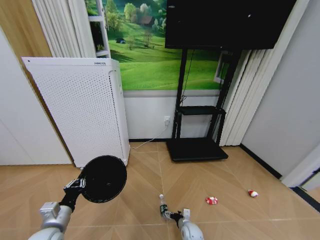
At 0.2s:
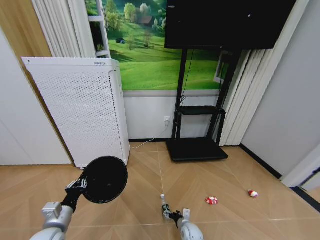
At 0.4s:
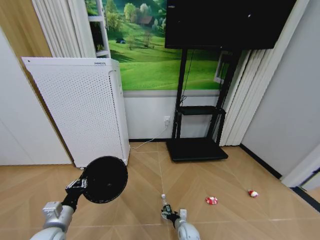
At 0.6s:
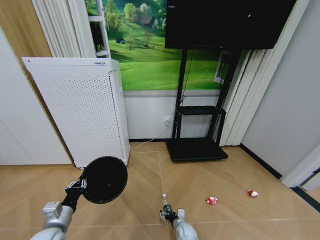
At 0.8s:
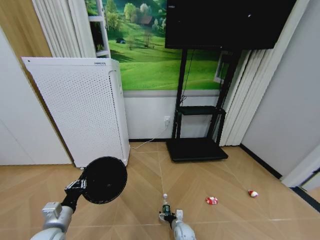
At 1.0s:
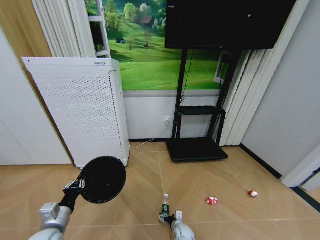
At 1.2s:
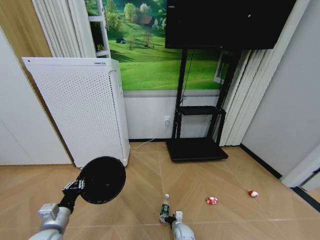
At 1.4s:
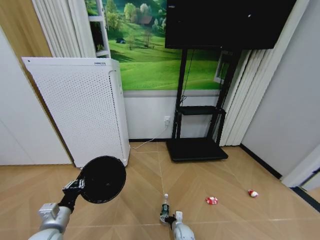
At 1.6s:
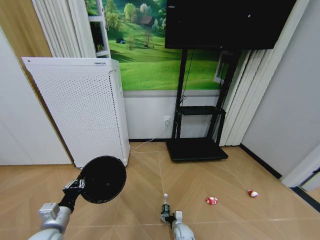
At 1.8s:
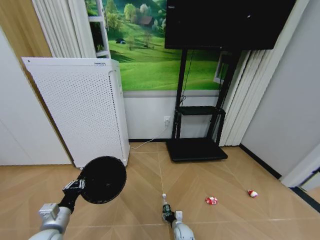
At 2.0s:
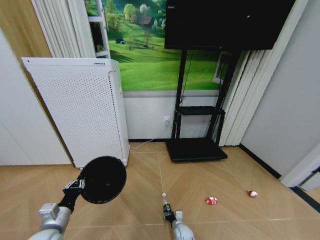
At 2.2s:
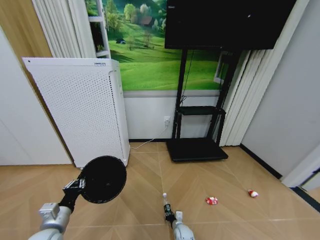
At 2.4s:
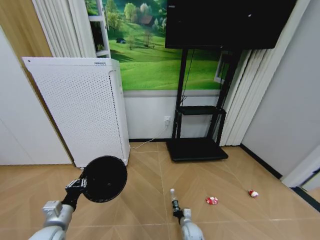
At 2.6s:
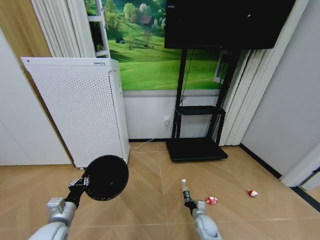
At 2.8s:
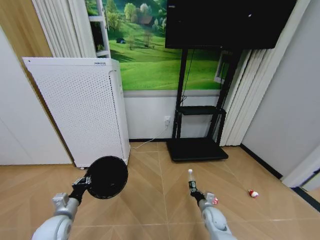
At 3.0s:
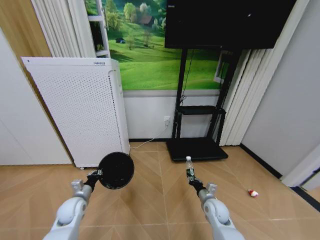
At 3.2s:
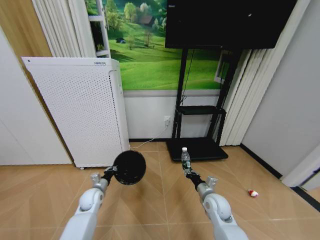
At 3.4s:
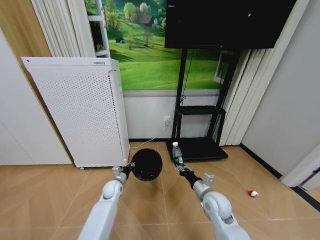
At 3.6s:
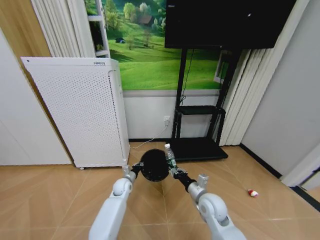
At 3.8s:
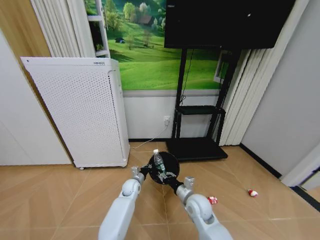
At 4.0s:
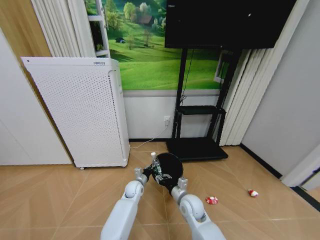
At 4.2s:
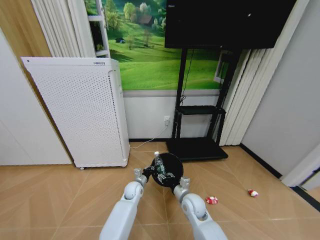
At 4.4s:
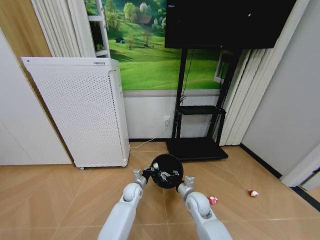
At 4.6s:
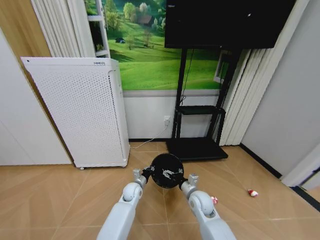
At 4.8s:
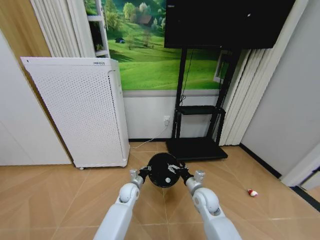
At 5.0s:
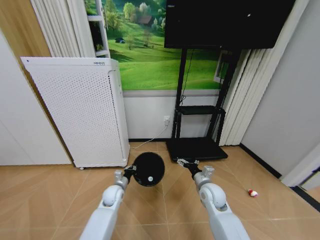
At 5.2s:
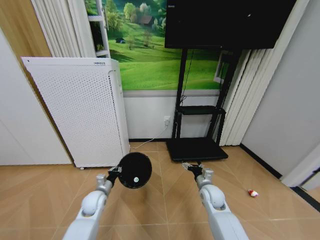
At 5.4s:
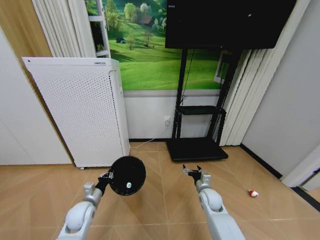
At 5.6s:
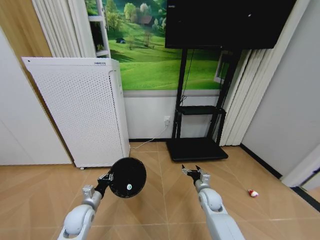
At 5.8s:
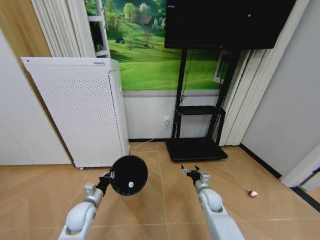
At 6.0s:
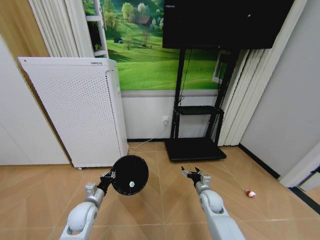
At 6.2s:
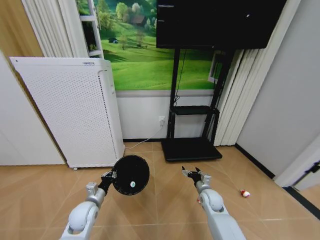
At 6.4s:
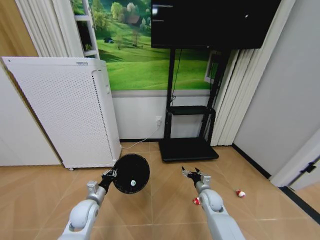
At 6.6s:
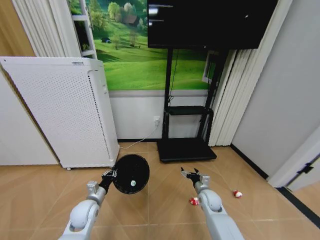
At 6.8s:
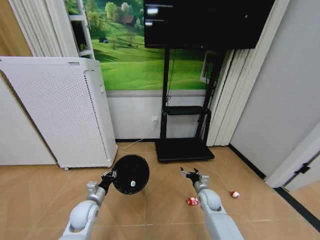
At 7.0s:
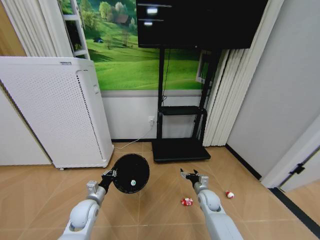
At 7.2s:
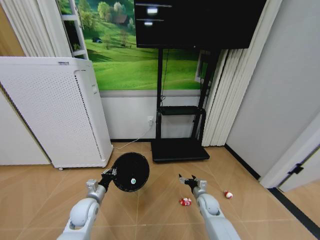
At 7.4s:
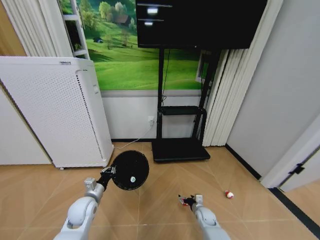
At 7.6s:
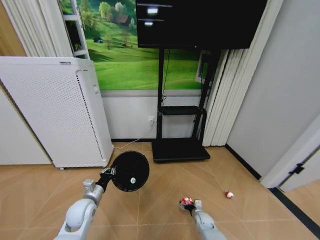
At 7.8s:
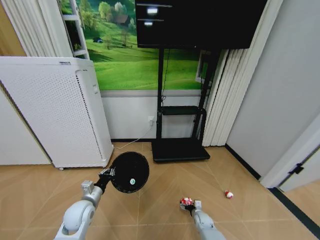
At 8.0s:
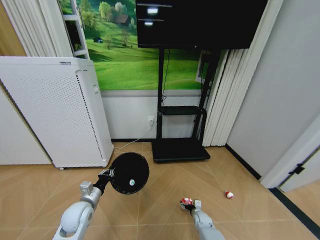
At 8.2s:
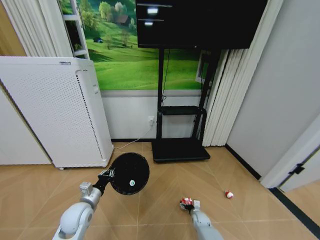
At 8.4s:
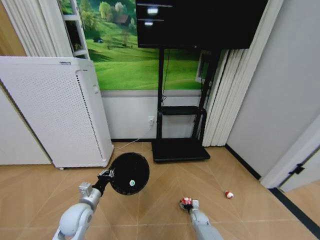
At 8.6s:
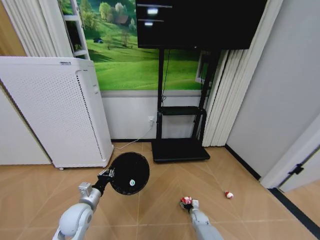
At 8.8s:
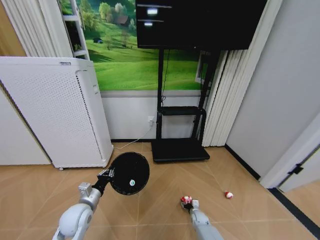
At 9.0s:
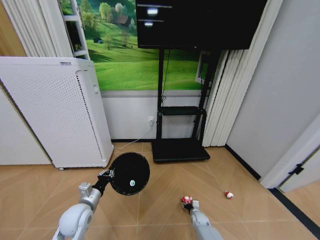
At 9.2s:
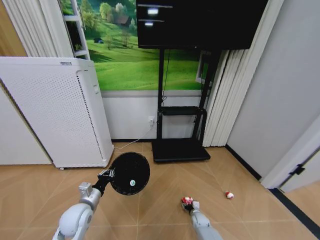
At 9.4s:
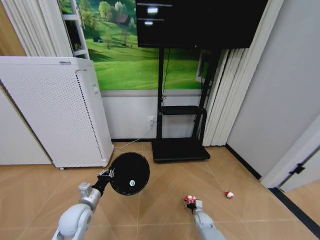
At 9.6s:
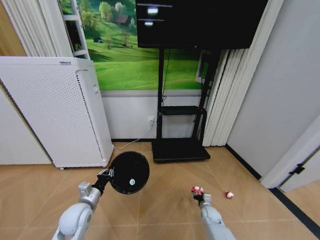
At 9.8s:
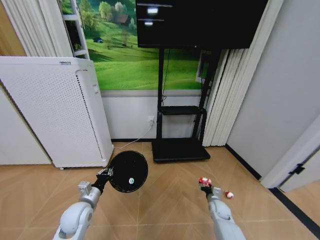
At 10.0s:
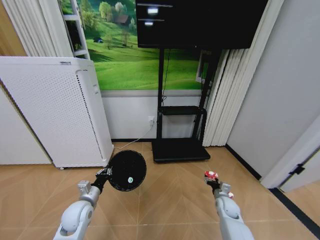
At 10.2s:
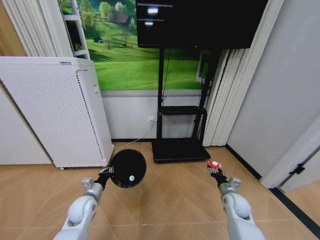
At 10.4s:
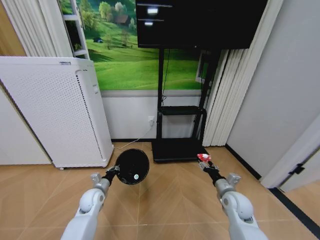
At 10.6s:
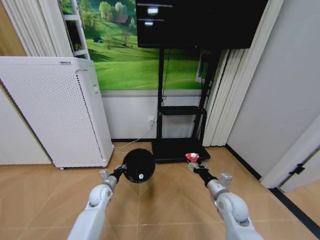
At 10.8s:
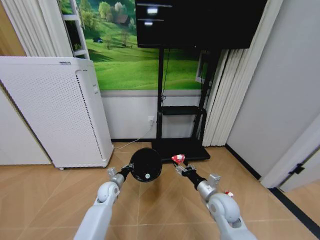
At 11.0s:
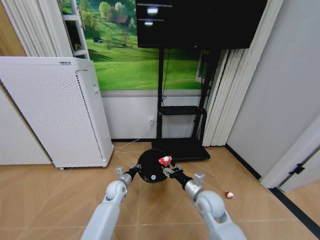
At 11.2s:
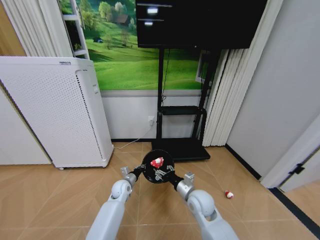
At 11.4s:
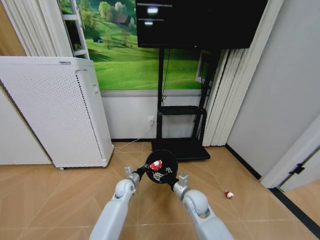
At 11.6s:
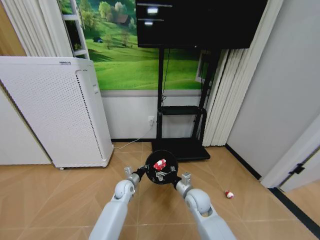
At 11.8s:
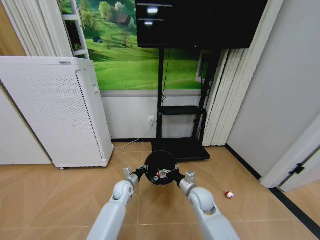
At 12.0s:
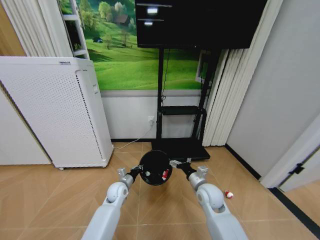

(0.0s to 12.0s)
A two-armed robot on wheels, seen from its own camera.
Task of the whole recording: Pick up the trash bin and place the garbage on the floor into it.
0.0s - 1.6s: The right gripper moves some 5 cm.
1.6s - 3.0s: The left gripper goes roughly 15 cm forward and downward; the right gripper shifts roughly 25 cm upward and to the right, and closes its fingers.
3.0s - 4.4s: The left gripper travels to the right by some 25 cm. The right gripper heads to the left, covering about 10 cm, and opens.
4.4s - 6.0s: The right gripper travels to the right by approximately 10 cm. Meanwhile the left gripper is displaced to the left and backward by approximately 20 cm.
6.0s - 7.6s: The right gripper is displaced downward by roughly 20 cm.
7.6s - 9.0s: The right gripper closes.
9.0s - 10.4s: The right gripper shifts about 30 cm upward. Meanwhile the left gripper travels forward and downward by approximately 10 cm.
10.4s - 12.0s: The left gripper shifts some 10 cm to the right, while the right gripper moves to the left, approximately 10 cm, and opens up.

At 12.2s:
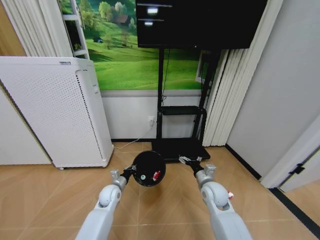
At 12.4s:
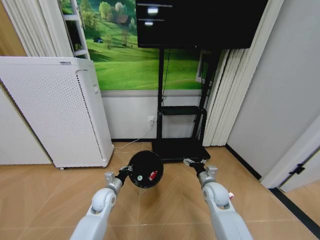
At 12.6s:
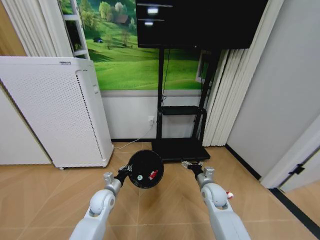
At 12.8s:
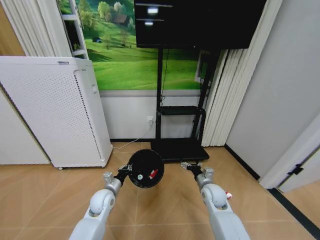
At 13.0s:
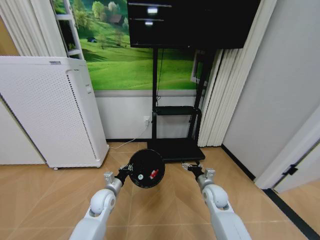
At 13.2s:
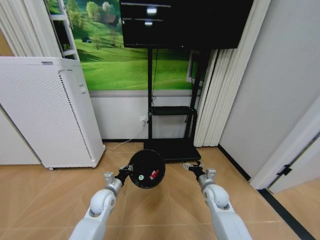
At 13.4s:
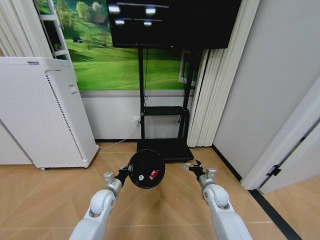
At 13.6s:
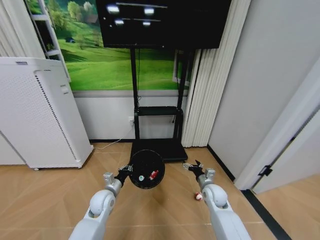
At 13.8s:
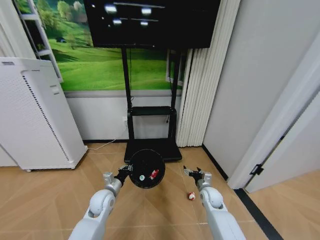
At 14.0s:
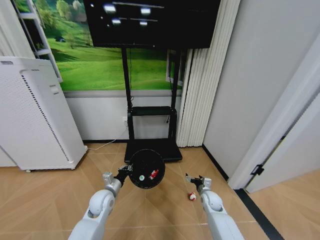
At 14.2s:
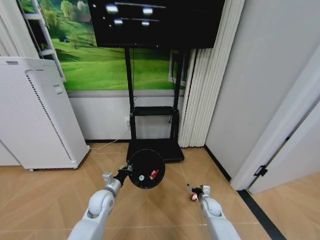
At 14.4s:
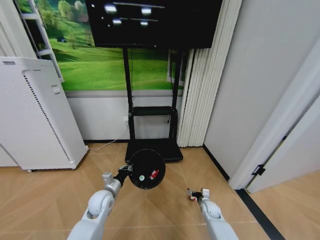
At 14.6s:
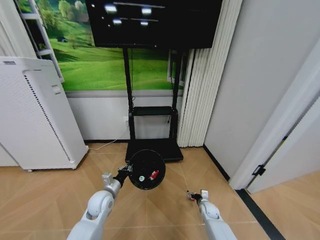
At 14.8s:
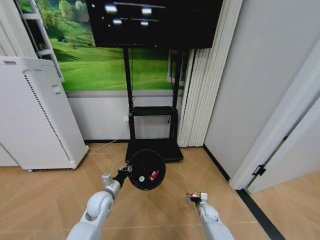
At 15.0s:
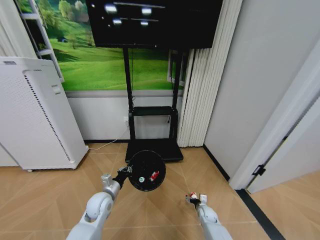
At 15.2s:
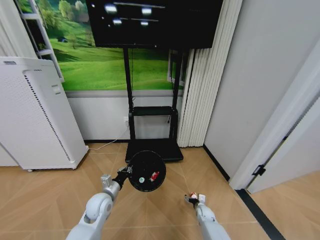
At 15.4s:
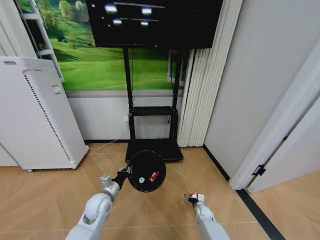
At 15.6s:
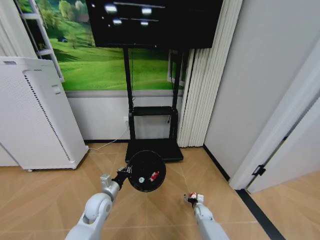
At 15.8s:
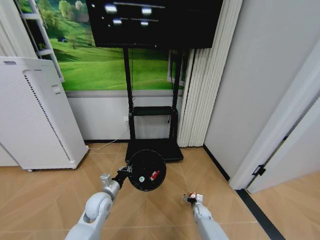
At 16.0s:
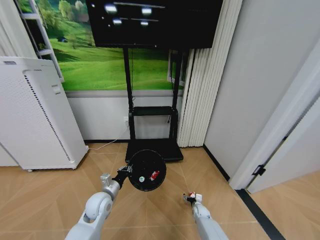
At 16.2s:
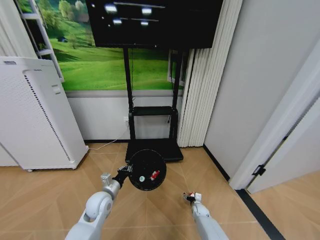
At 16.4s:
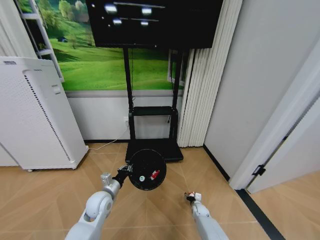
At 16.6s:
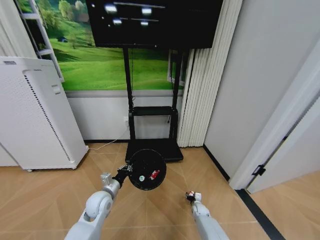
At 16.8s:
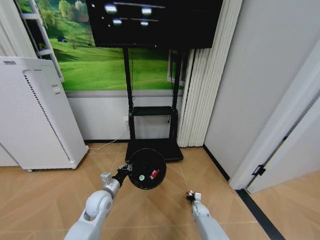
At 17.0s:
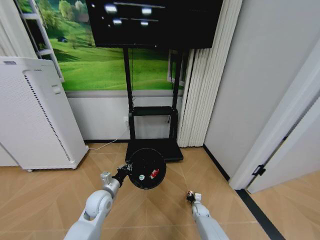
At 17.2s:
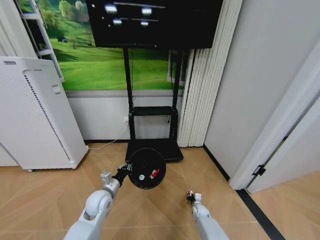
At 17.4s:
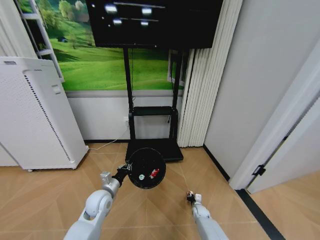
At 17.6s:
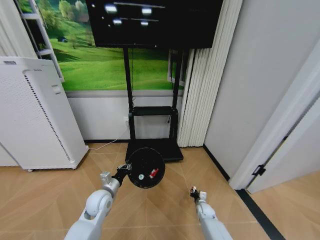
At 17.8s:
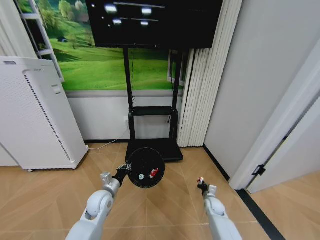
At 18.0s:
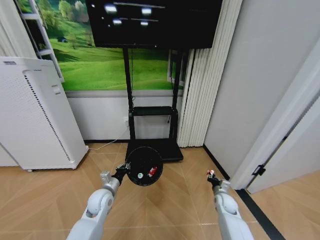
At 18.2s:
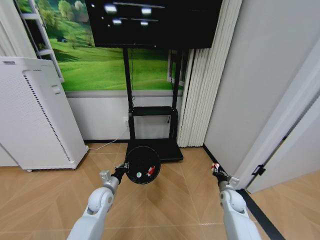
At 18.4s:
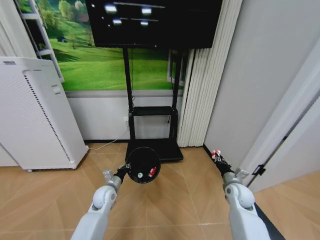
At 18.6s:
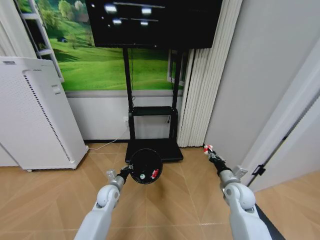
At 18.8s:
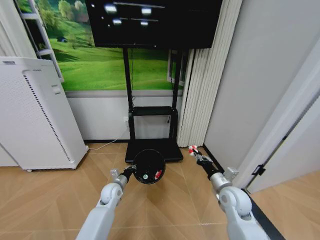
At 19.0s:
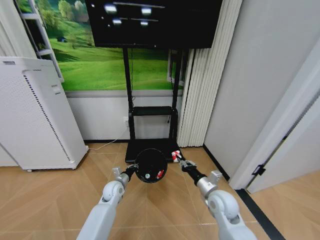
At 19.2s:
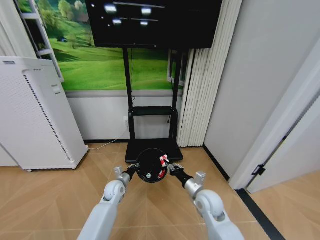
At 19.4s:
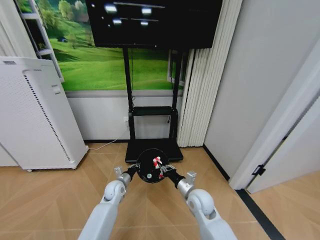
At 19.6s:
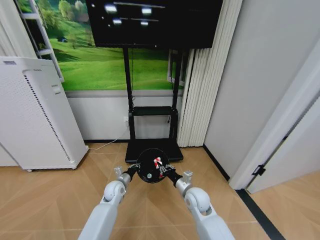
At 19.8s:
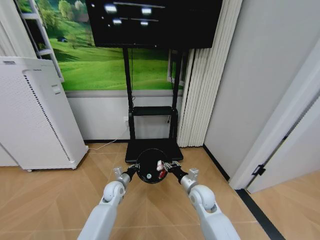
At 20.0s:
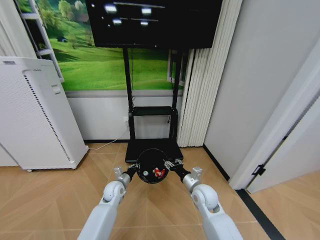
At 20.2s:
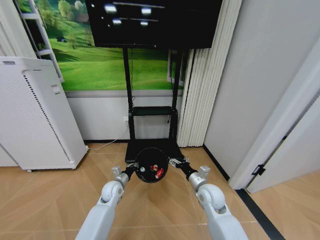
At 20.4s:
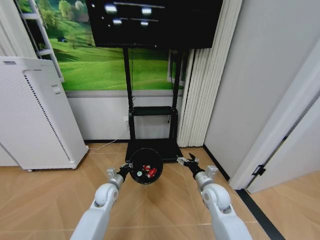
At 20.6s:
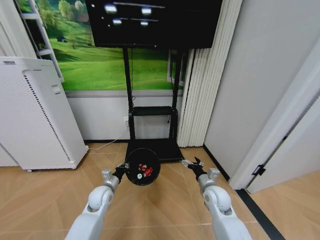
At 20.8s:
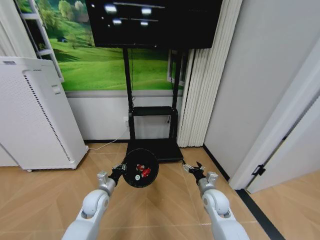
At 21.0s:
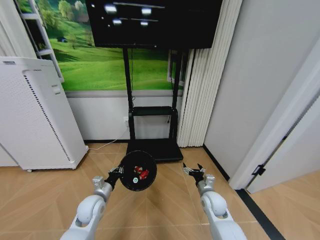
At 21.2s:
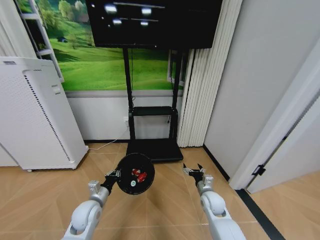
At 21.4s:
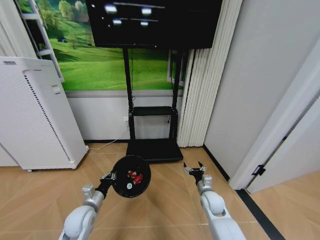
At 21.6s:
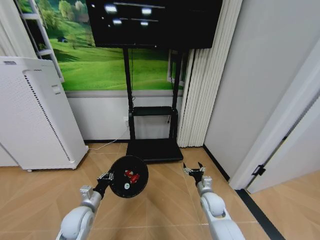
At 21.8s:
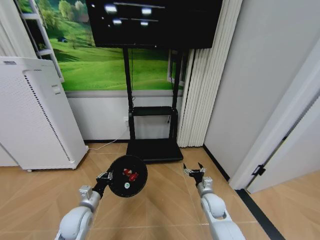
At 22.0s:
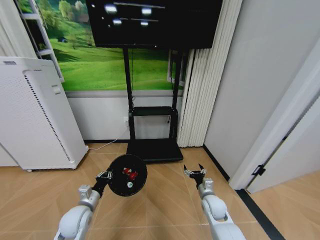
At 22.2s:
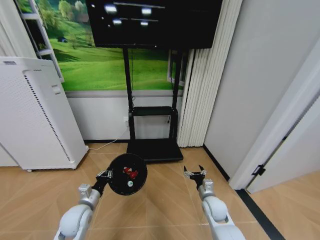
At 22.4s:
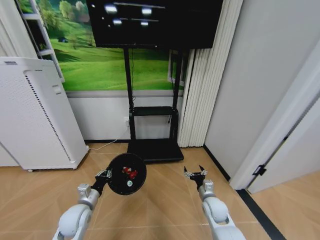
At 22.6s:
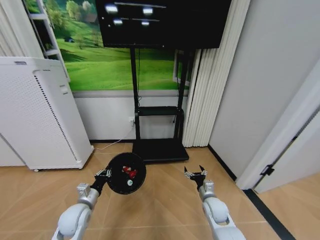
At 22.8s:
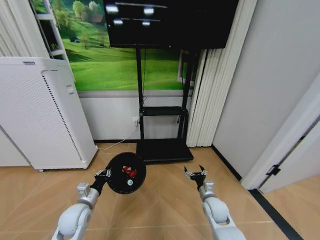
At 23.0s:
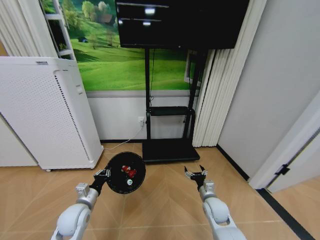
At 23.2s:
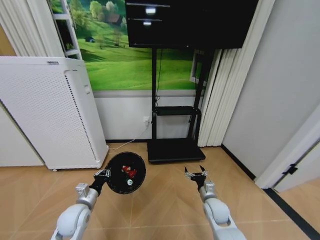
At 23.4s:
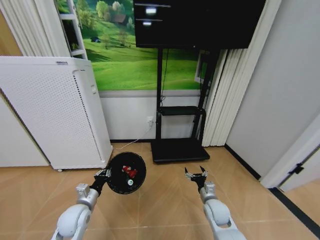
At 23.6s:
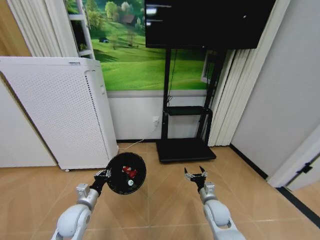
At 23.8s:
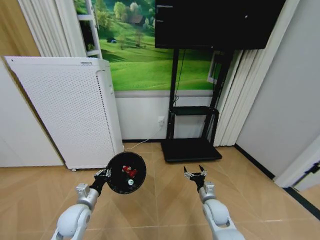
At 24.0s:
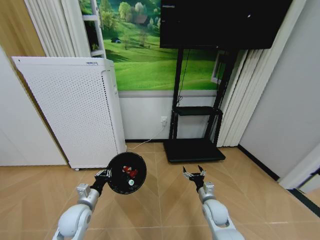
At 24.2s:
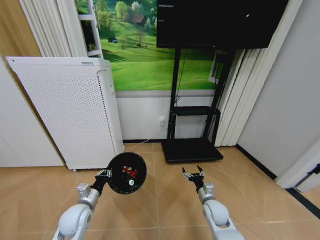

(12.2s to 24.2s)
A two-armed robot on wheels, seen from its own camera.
Task of the whole recording: Pick up the trash bin and place the garbage on the floor into it.
12.2s - 13.8s: The right gripper shifts roughly 10 cm downward. Meanwhile the left gripper ends up approximately 5 cm from where it was.
13.8s - 15.2s: The right gripper travels downward by approximately 20 cm.
15.2s - 16.6s: The right gripper closes up.
16.6s - 18.2s: The right gripper travels upward and to the right by about 25 cm, and closes its fingers.
18.2s - 19.8s: The left gripper shifts roughly 5 cm forward, while the right gripper is displaced to the left by some 20 cm.
19.8s - 21.2s: The right gripper shifts some 10 cm to the right and downward, and opens its fingers; the left gripper travels backward and to the left by approximately 15 cm.
